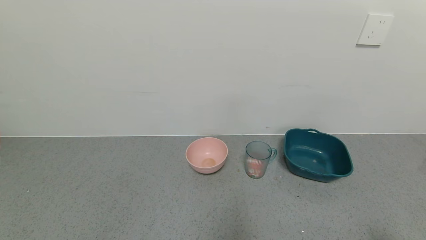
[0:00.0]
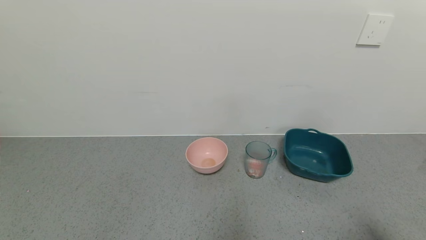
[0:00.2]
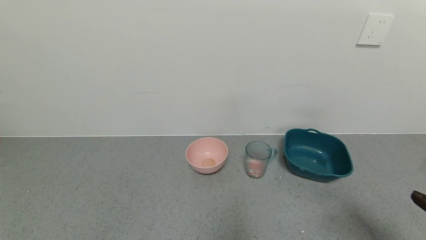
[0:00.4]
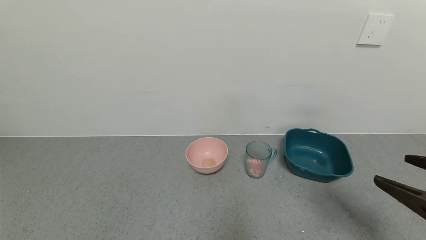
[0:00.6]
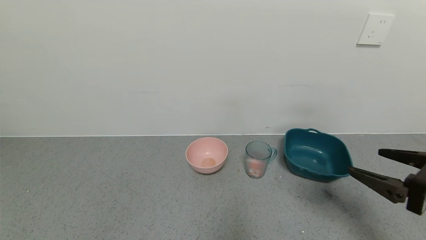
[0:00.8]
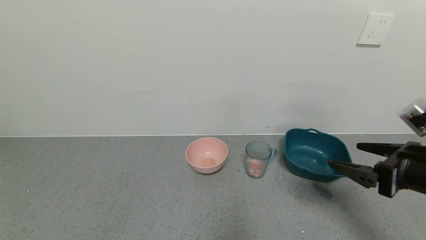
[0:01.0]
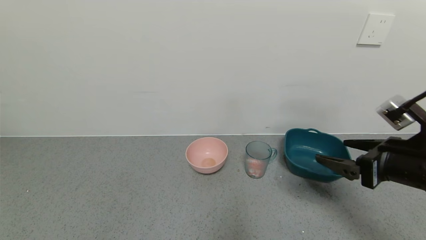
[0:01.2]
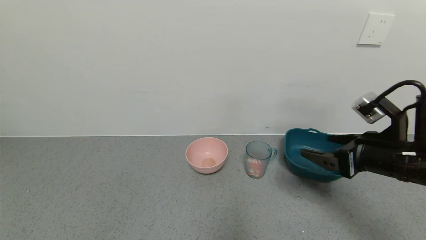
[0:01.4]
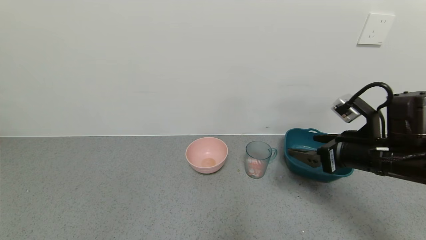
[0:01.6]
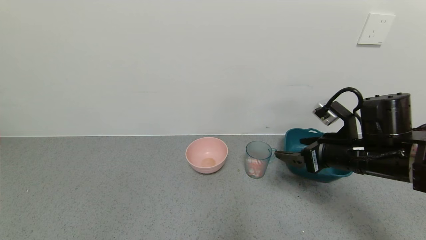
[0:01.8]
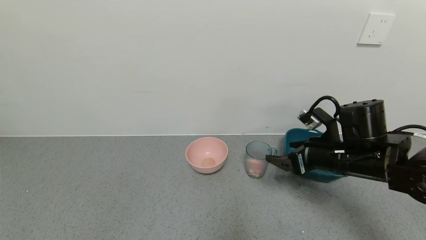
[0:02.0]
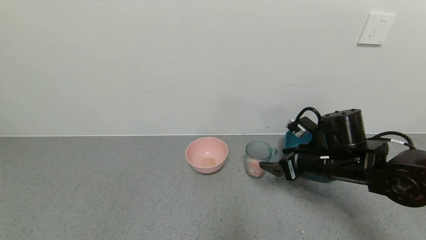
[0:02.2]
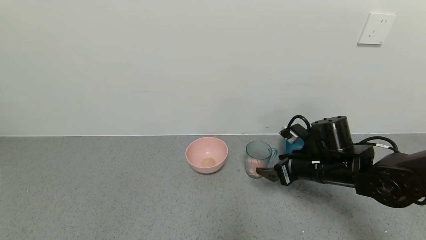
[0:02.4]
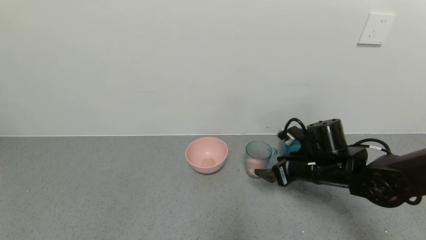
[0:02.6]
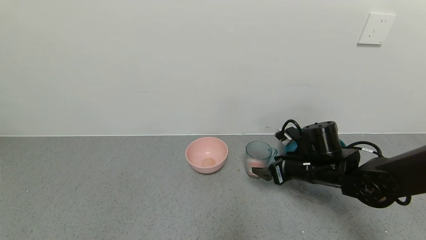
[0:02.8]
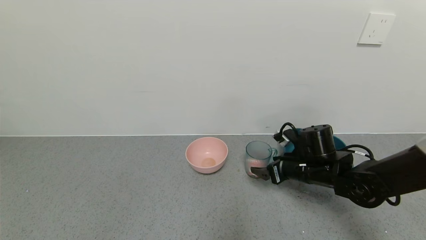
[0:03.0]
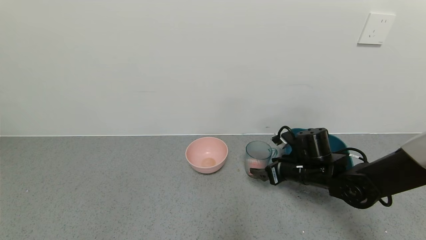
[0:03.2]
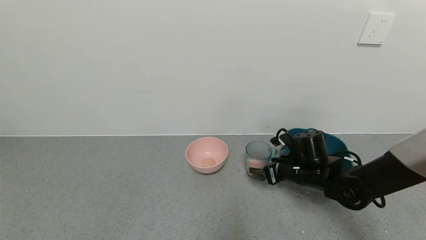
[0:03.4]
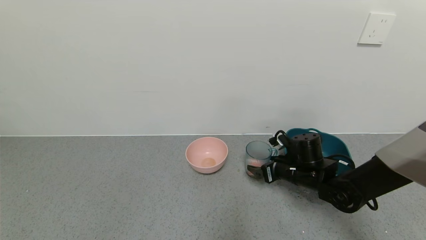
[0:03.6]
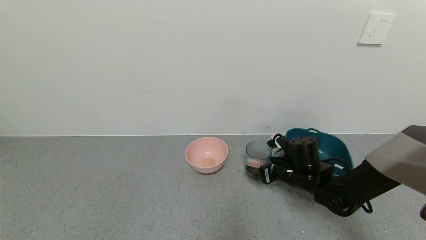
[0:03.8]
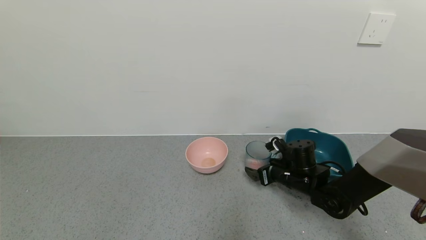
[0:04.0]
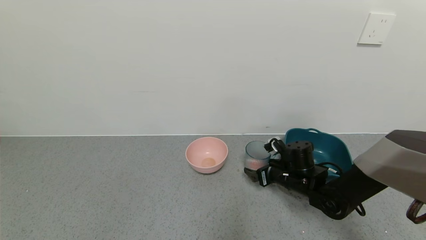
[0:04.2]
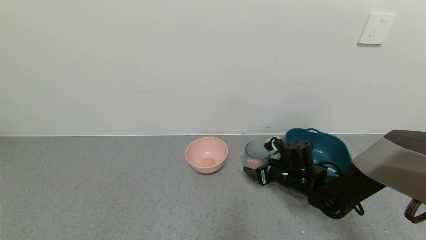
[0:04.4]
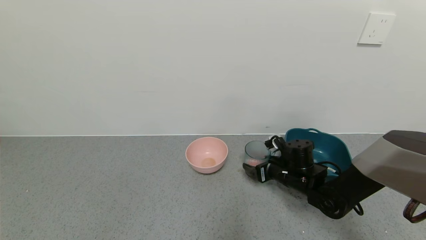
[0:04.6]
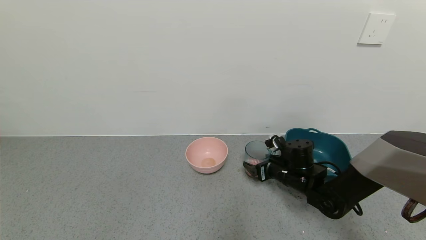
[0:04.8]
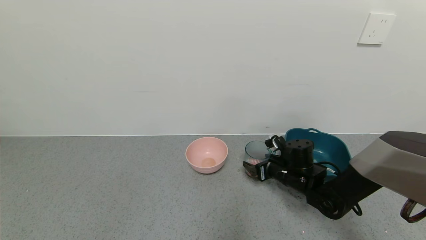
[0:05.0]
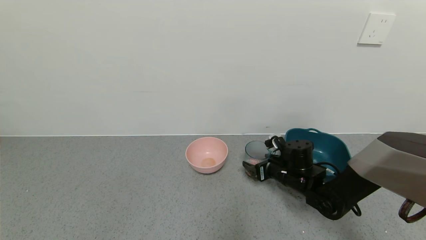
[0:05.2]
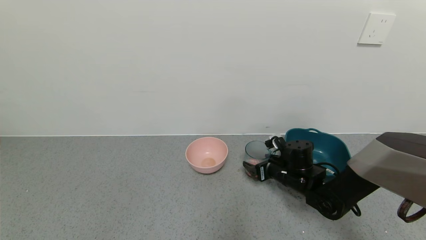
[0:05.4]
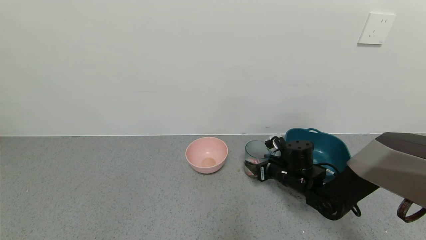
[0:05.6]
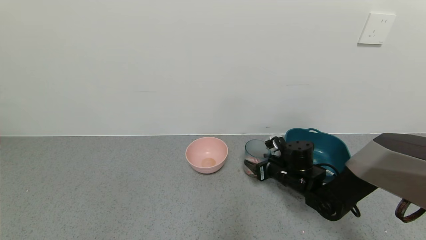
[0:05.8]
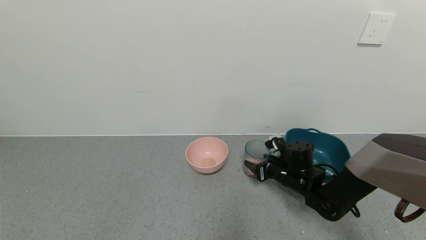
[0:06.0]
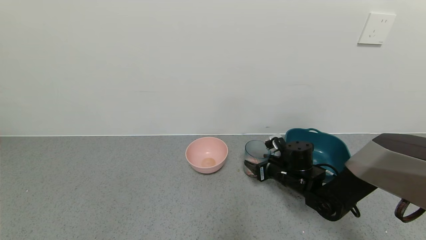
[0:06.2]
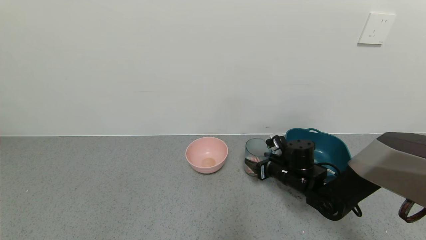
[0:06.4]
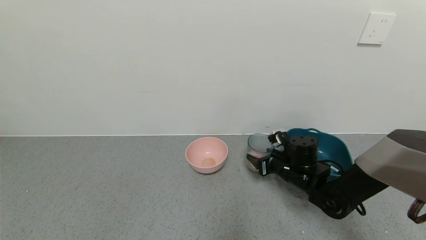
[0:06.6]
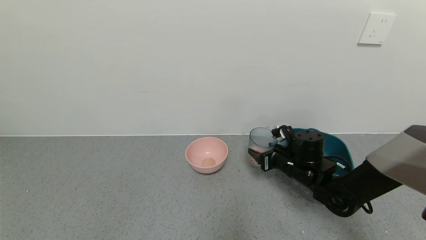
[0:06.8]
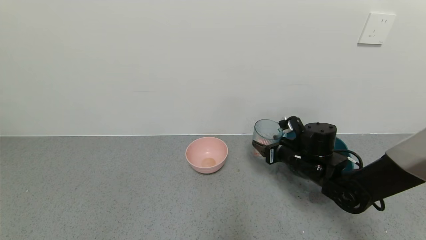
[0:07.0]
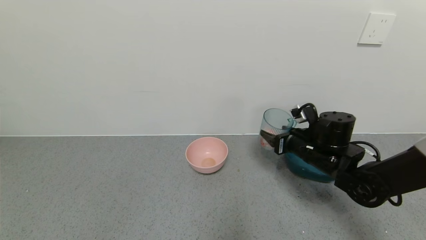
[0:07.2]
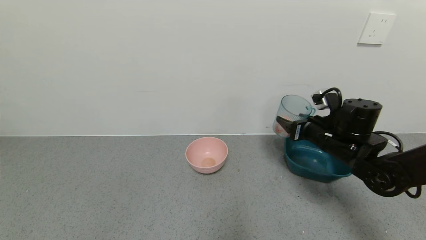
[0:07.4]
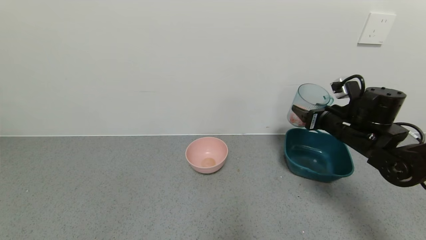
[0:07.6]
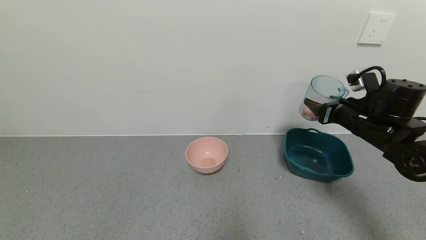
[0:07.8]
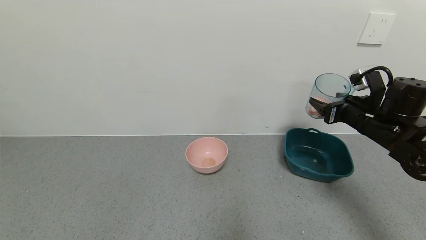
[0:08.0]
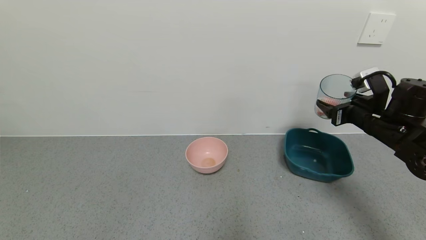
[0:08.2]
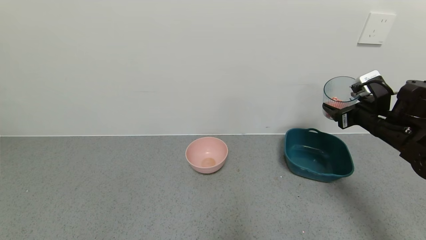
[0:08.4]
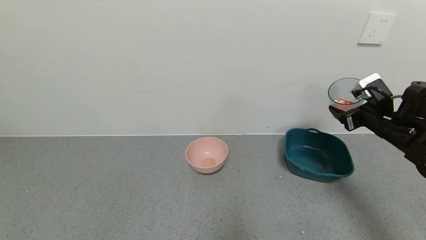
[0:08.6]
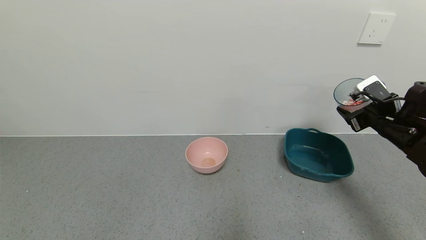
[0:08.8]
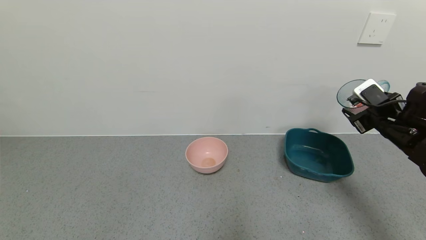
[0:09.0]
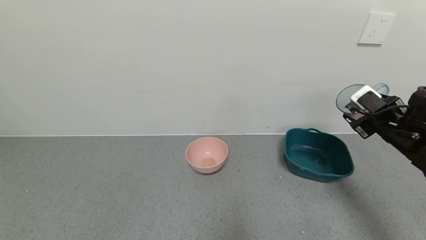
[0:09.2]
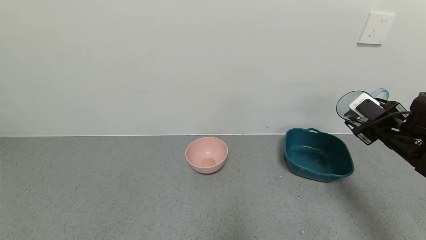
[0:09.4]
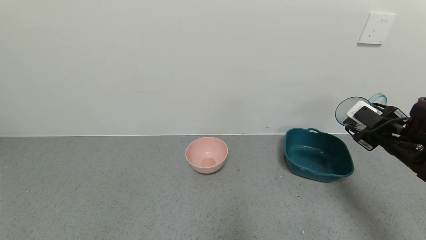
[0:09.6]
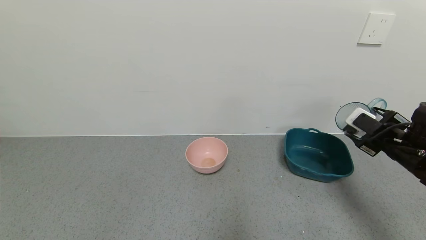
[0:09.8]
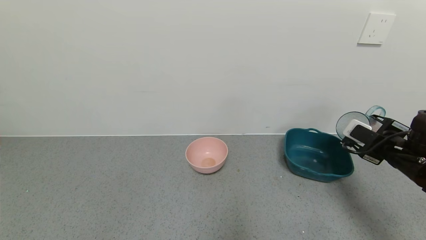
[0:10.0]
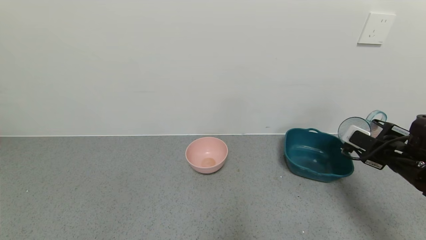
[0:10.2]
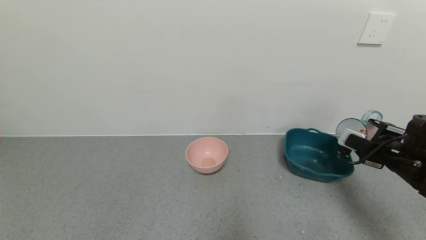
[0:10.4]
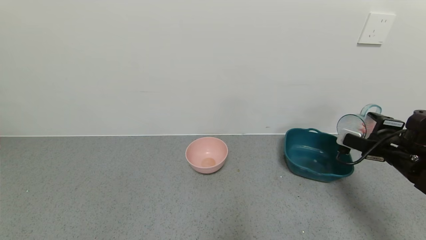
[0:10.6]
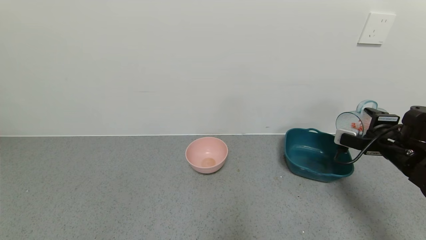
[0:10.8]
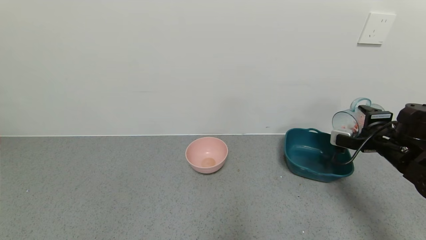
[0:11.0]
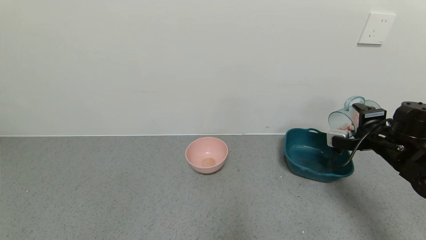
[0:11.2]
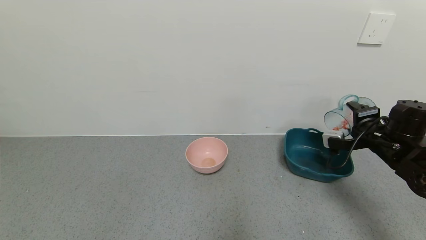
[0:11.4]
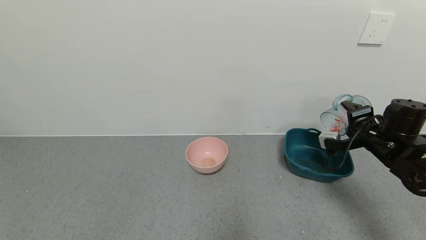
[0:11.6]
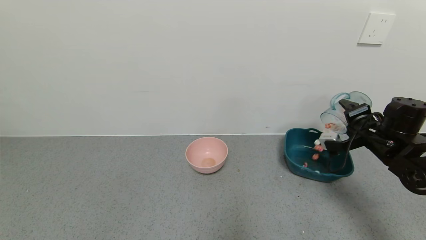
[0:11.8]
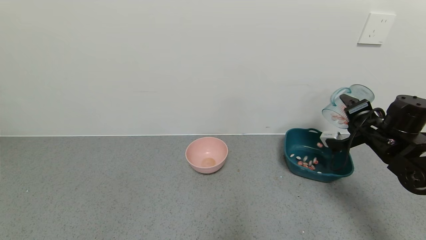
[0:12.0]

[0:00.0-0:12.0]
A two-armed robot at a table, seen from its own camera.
Task of the whole recording: use a gripper to pick up the cup and pour the solid into a bowl or tray.
Step, 0:00.0 to 0:05.6: Grasp the glass of shrimp with the right gripper.
0:00.0 to 0:01.6: The right gripper heads forward, covering roughly 25 cm.
0:01.6 to 0:03.0: The right gripper travels downward, forward and to the left by approximately 15 cm.
0:03.0 to 0:04.4: The right gripper shifts some 5 cm downward.
0:04.4 to 0:06.0: The right gripper closes.
0:06.0 to 0:07.6: The right gripper goes roughly 20 cm upward and to the right.
0:07.6 to 0:09.0: The right gripper is displaced to the right by approximately 10 cm.
0:09.0 to 0:10.4: The right gripper shifts by some 5 cm.
0:10.4 to 0:12.0: The right gripper ends up roughly 5 cm from where it was.

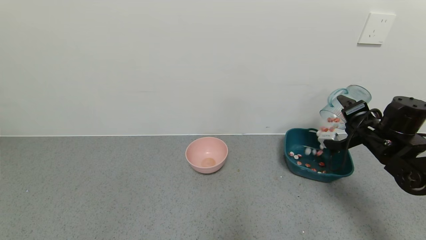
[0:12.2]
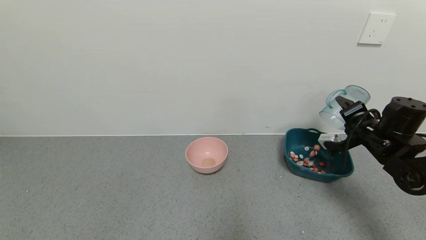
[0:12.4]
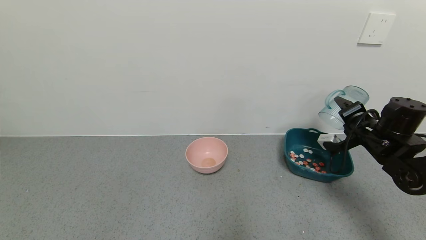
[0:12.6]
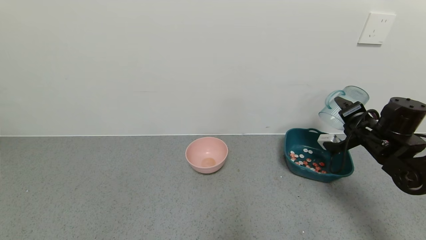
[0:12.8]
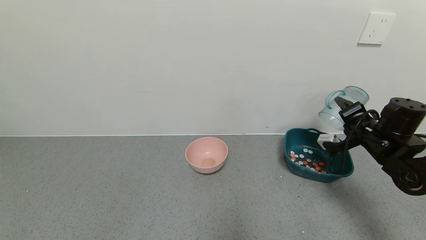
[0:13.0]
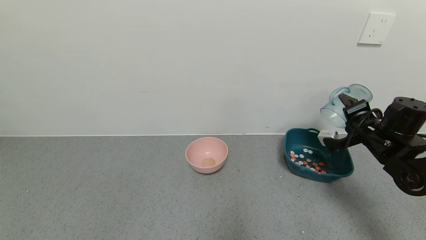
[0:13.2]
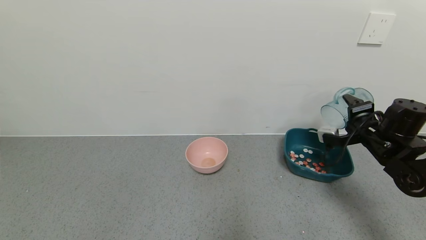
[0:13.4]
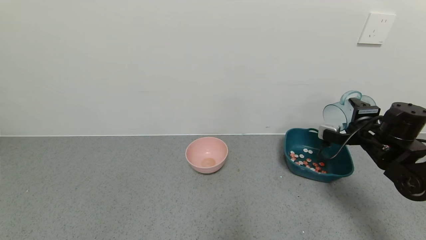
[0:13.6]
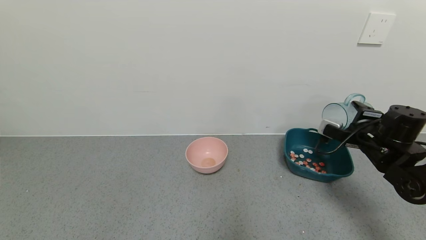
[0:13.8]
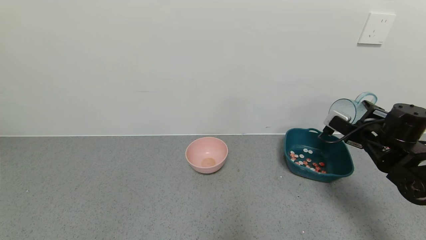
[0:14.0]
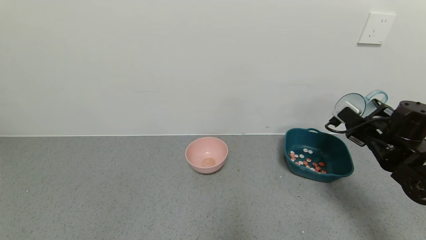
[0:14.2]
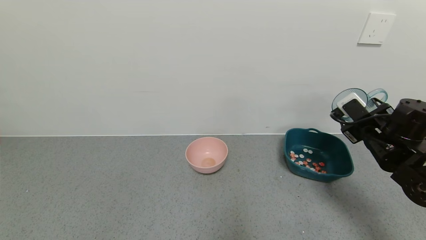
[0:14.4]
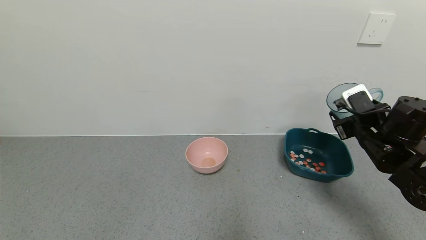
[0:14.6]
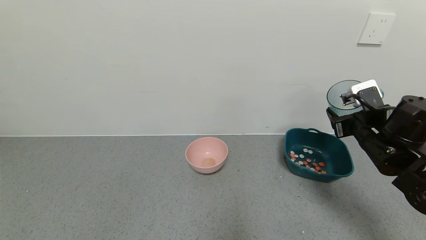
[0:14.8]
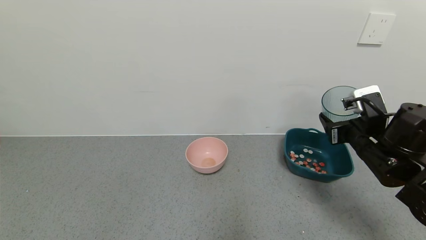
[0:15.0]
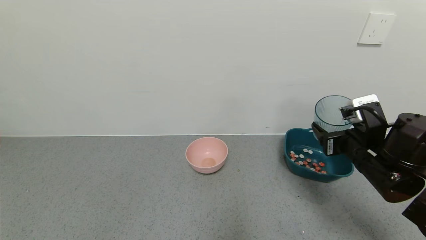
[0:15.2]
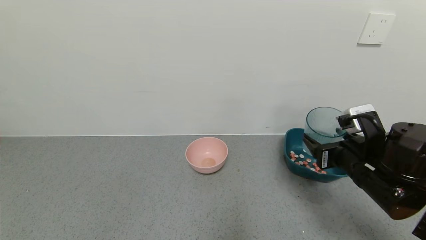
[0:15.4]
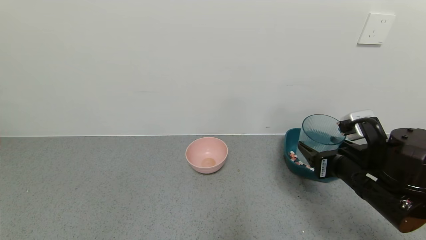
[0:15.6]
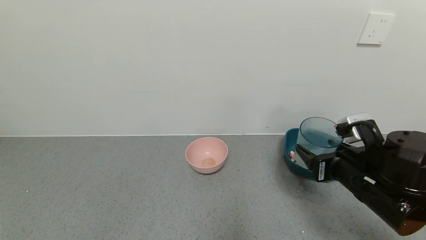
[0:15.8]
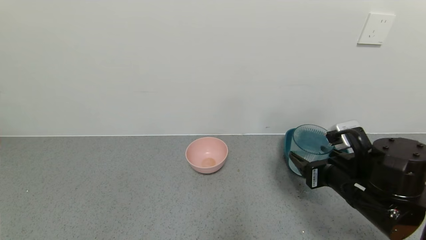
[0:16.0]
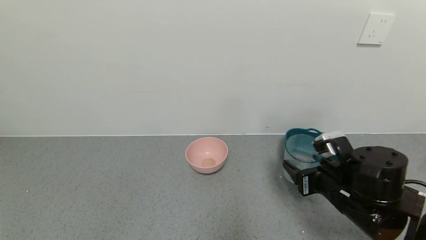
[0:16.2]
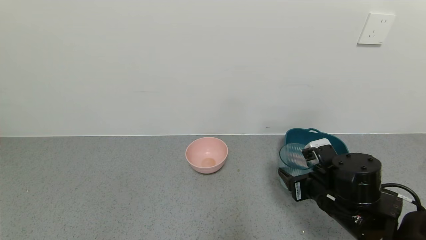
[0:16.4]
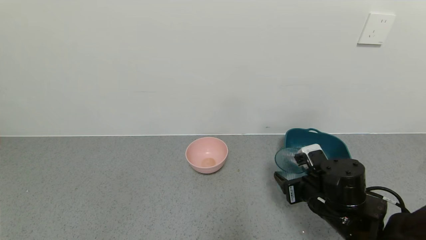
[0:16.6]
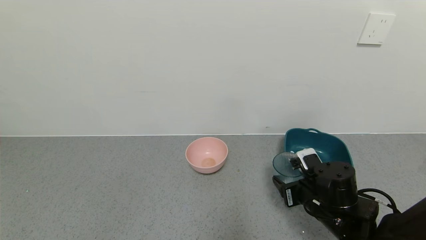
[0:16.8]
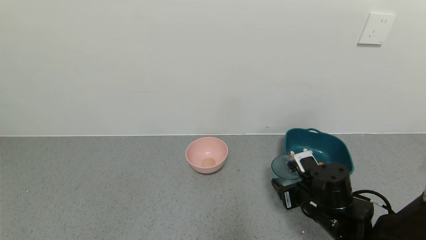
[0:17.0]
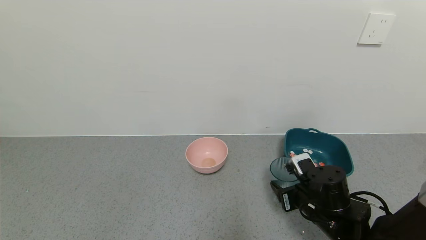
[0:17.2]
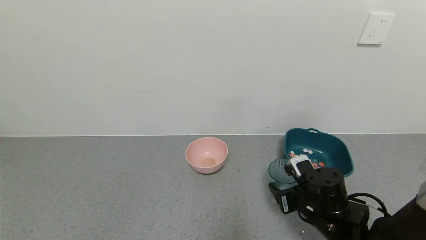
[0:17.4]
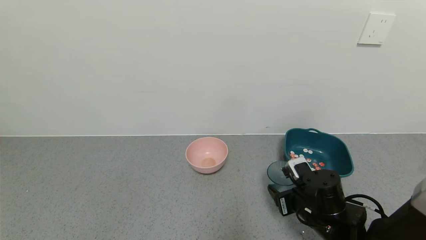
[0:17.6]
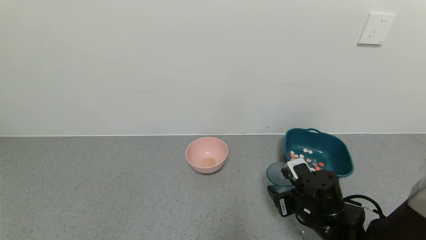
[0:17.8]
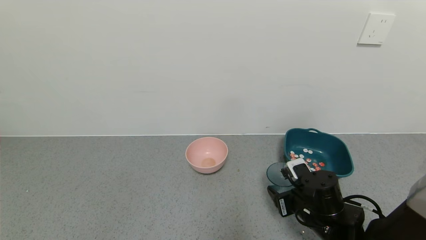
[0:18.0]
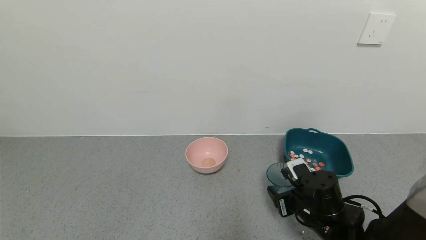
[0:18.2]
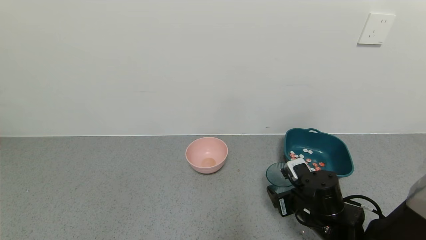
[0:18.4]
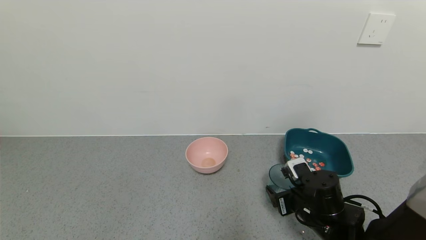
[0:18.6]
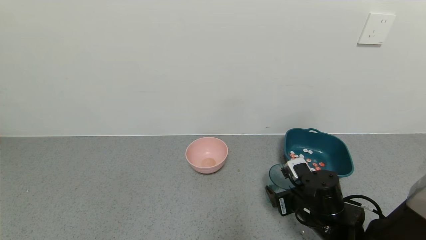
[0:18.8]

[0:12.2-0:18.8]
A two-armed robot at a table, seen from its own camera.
Task of the whole recording: use a gripper to pick up the cup and pour the solid into a bowl or tray.
0:13.8 to 0:15.4: The right gripper goes approximately 15 cm backward and to the left.
0:15.4 to 0:17.2: The right gripper is displaced downward by roughly 10 cm.
0:17.2 to 0:18.8: The right gripper opens up.
